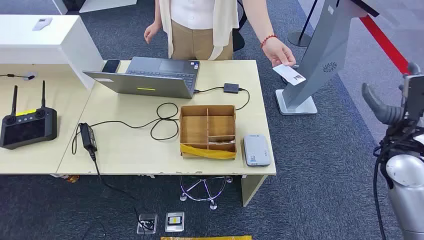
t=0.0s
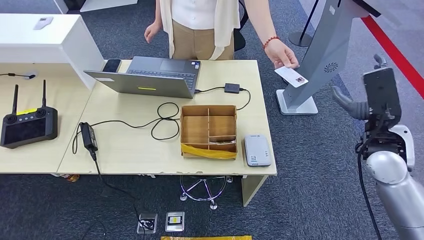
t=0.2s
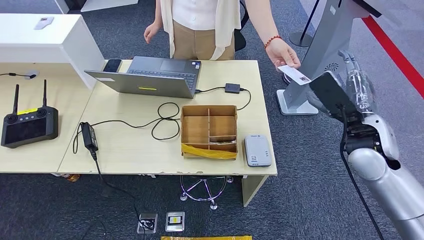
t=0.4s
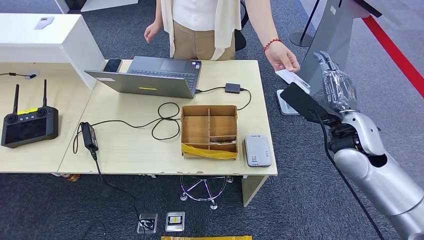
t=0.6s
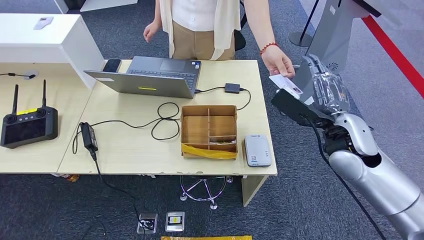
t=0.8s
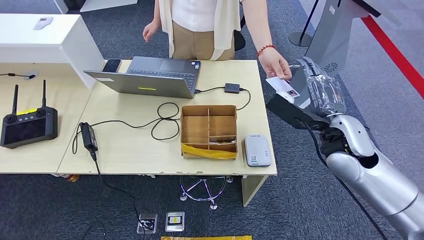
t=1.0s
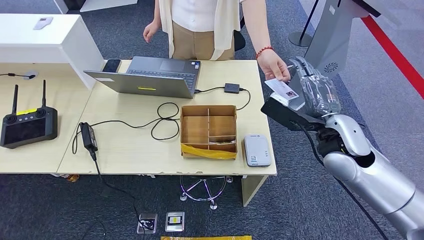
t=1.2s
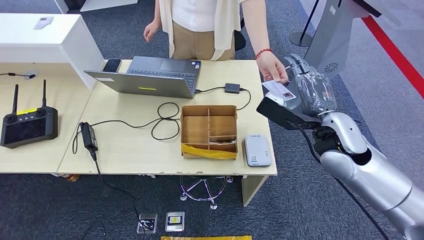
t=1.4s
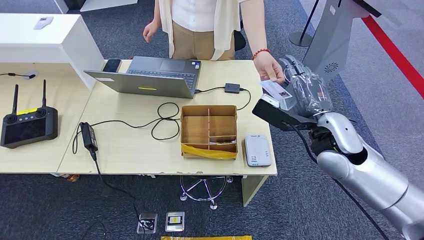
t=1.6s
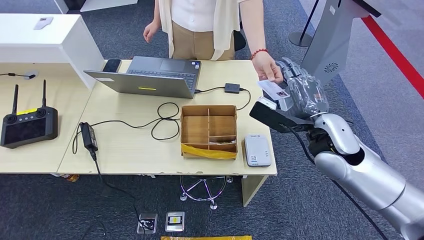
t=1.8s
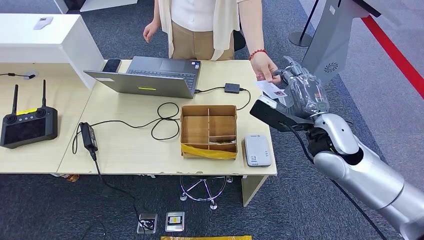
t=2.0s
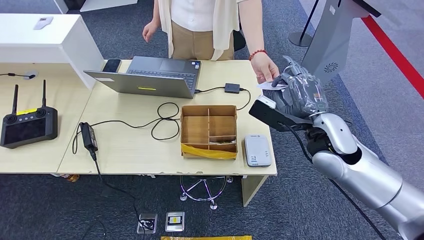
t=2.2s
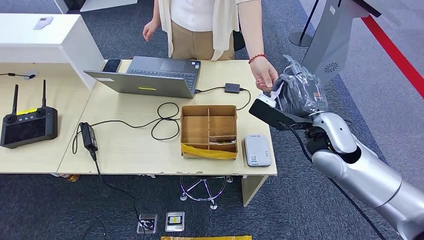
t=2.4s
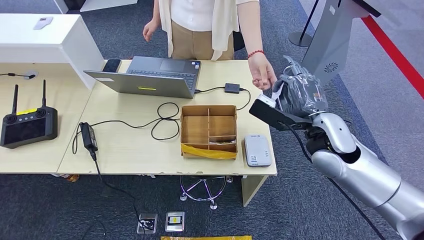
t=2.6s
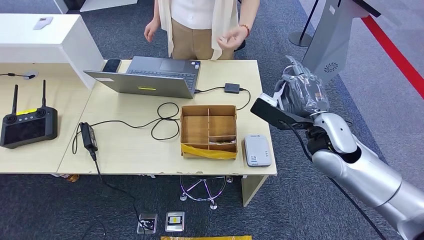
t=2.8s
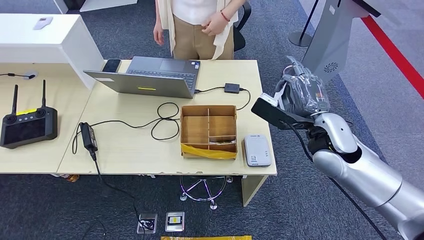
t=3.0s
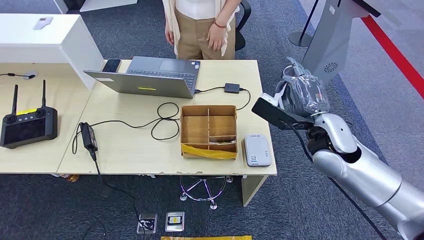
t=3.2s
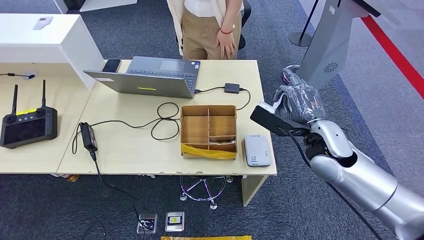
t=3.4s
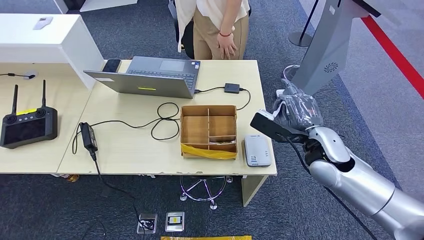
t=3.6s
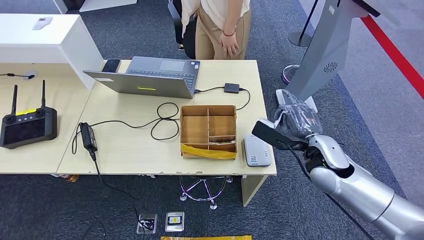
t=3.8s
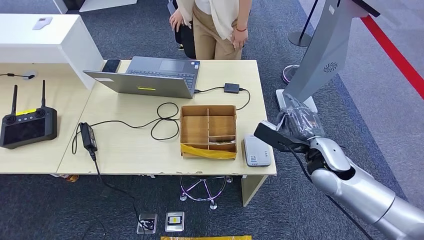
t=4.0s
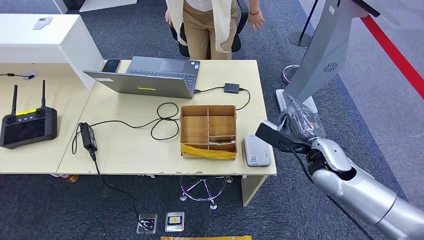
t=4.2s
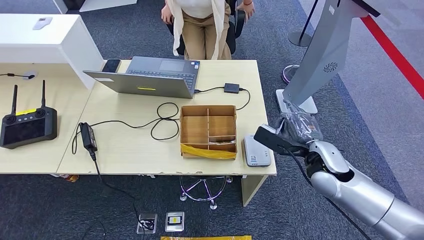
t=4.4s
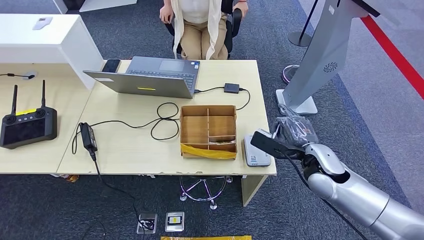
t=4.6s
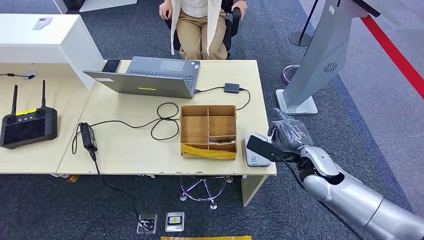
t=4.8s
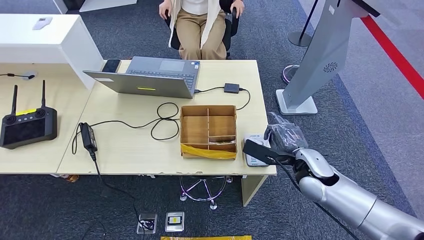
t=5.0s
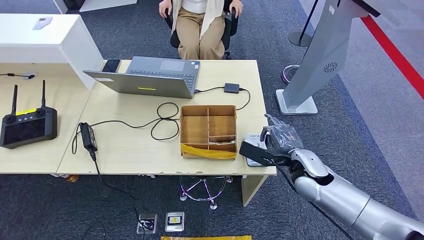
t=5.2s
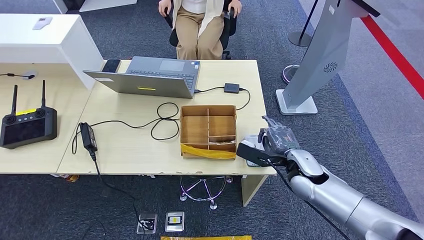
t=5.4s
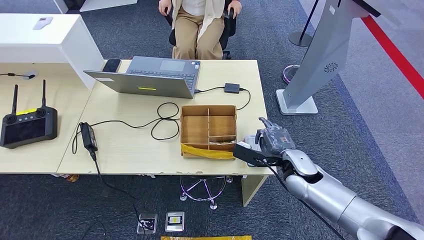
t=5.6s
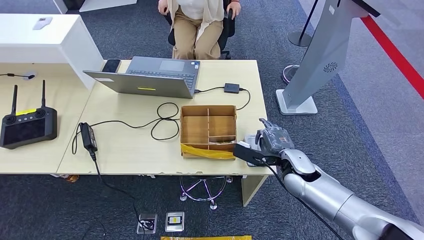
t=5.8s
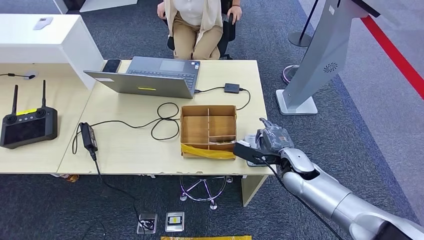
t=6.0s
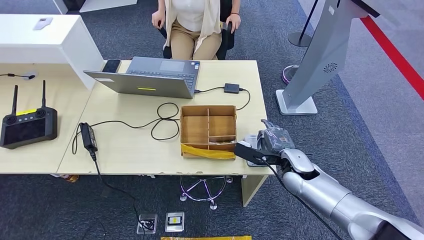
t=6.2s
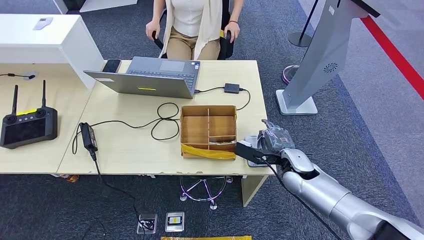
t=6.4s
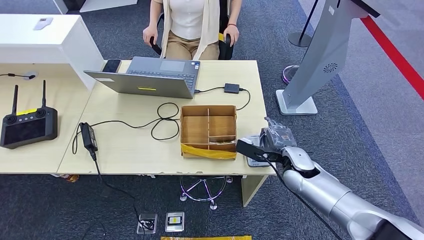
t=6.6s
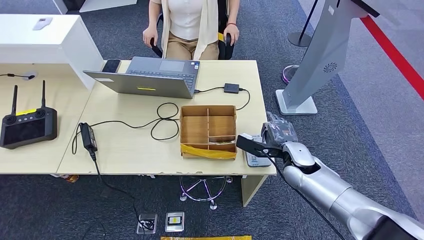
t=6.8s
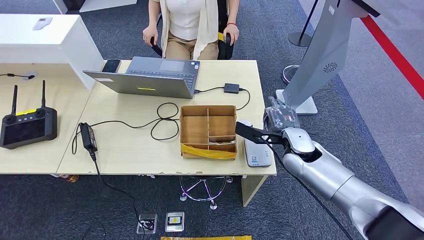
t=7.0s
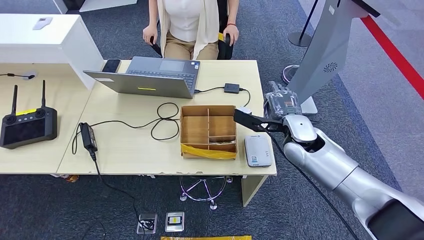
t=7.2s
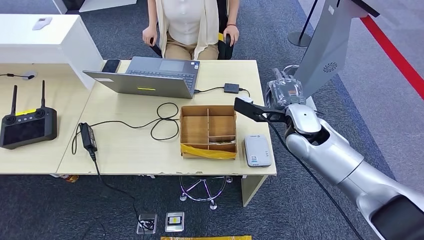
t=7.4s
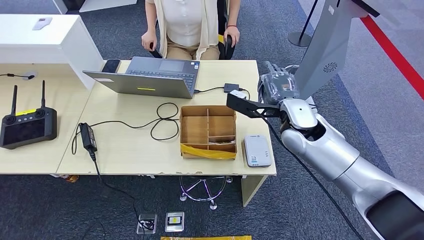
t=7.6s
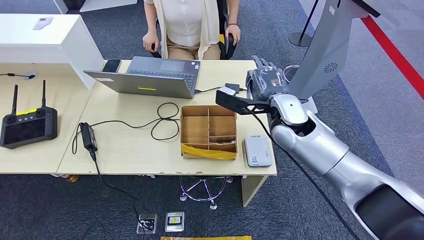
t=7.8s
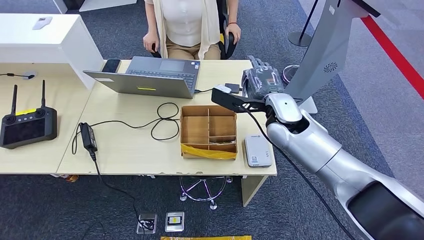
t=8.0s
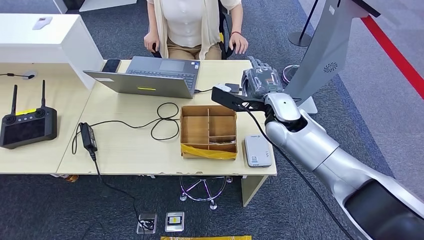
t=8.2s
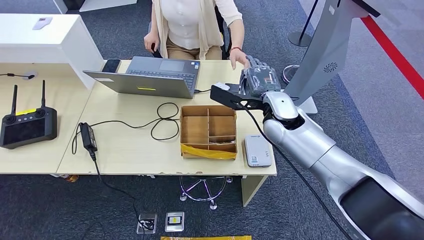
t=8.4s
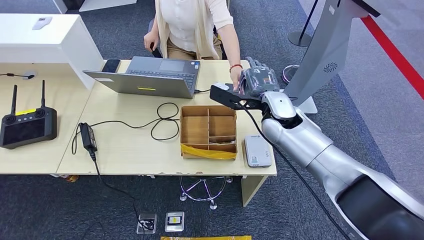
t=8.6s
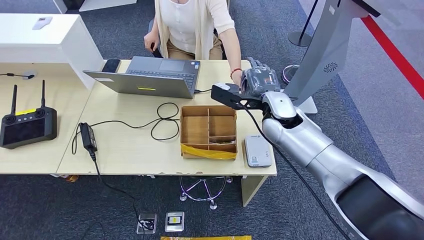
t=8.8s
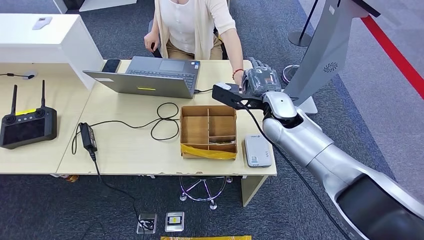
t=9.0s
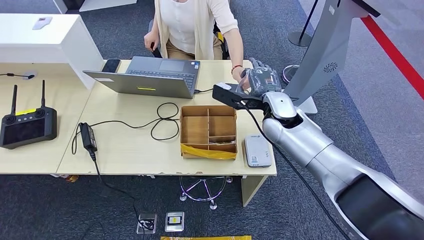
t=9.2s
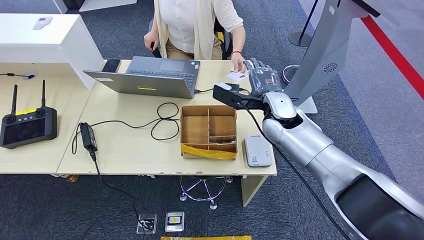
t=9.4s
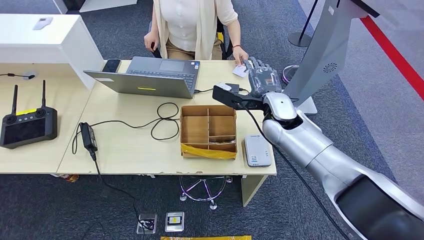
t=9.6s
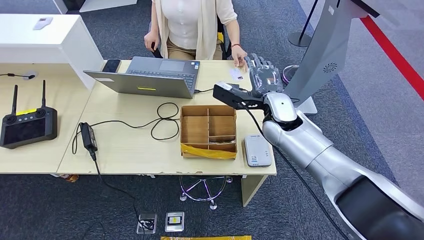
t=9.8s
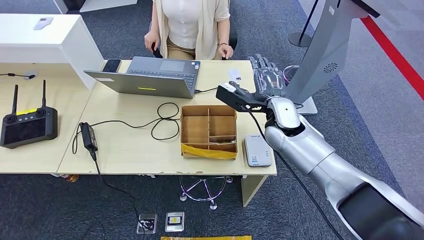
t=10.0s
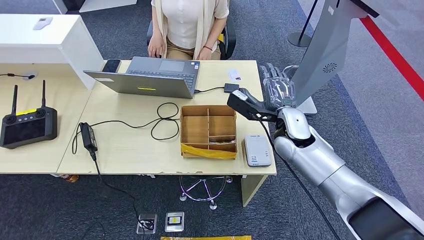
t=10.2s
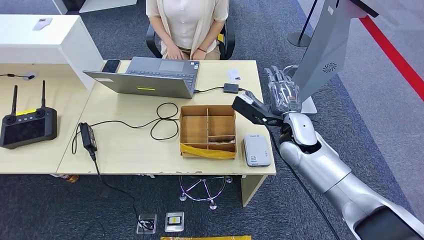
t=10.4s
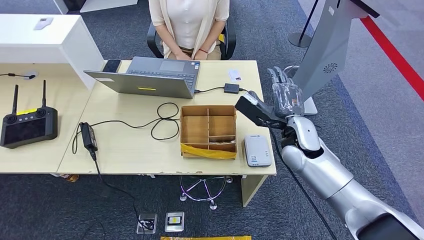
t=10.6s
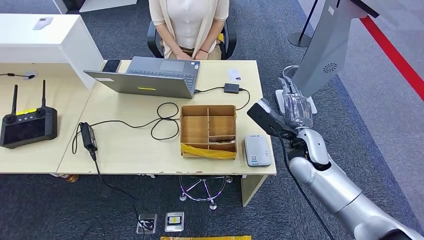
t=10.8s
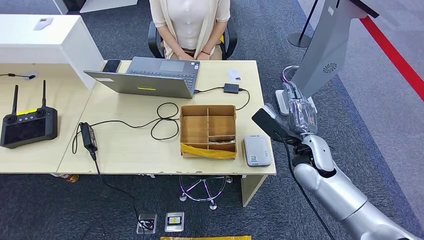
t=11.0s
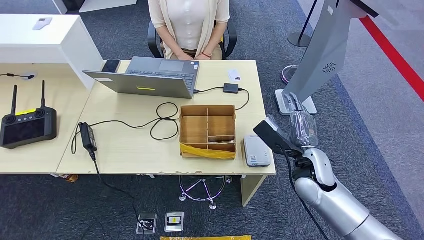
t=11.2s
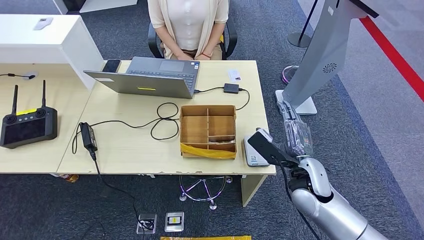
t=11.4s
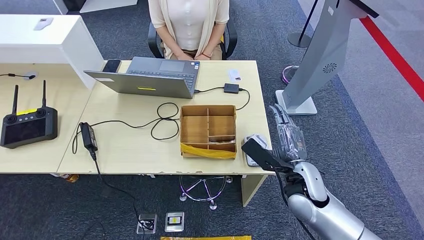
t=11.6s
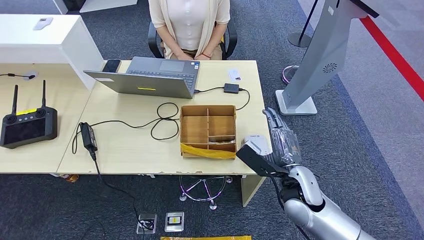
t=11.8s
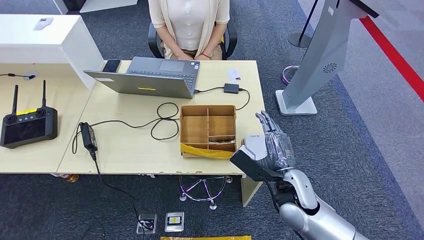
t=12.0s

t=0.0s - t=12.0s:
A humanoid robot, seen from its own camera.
Step, t=0.0s - t=3.2s: Take the ID card from the person's hand.
Step, t=3.4s - t=7.2s: Place the ID card on the card reader.
Step, t=7.4s - t=10.2s: Hand the ID card to the person.
t=1.6s - t=3.0s: The two hands keep their place.
t=3.0s - t=4.4s: The right hand goes approximately 10 cm downward.
t=4.4s - t=6.0s: The right hand is displaced downward by approximately 5 cm.
t=6.0s - t=7.6s: The right hand travels upward by about 15 cm.
t=7.6s - t=9.0s: The right hand moves approximately 5 cm.
t=9.0s - t=10.4s: The right hand ends up approximately 5 cm from where it was.
t=10.4s - t=12.0s: The right hand heads backward and downward, covering some 15 cm.

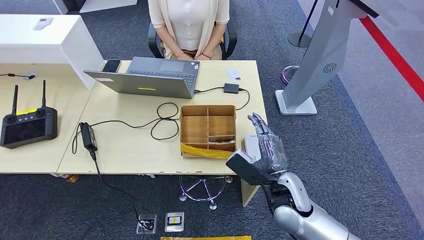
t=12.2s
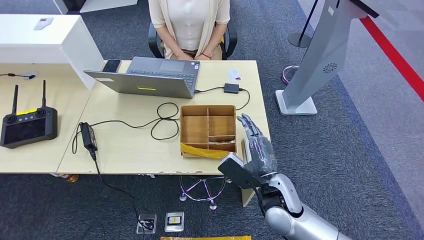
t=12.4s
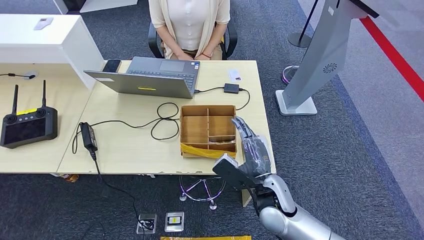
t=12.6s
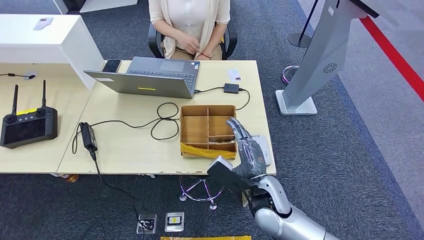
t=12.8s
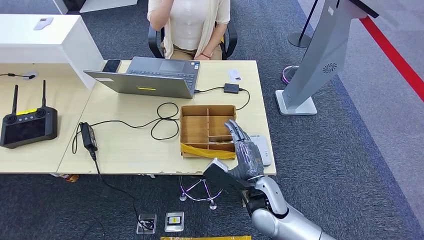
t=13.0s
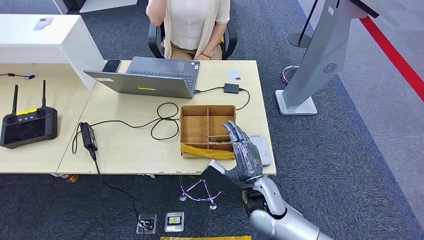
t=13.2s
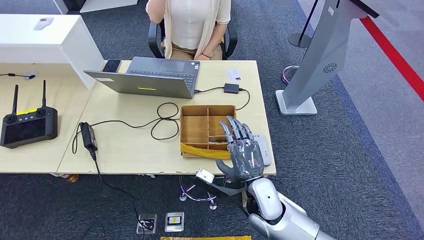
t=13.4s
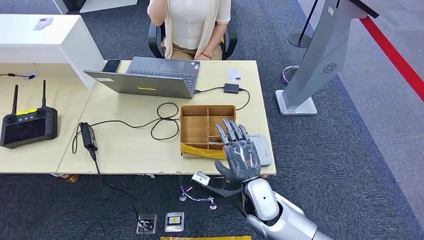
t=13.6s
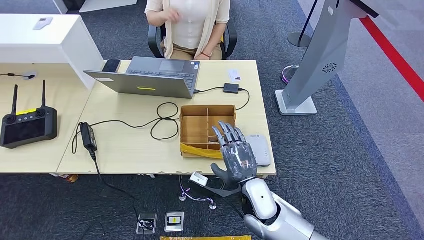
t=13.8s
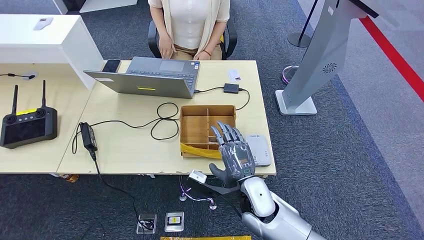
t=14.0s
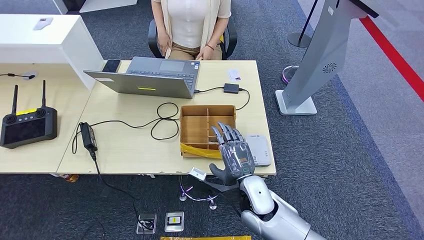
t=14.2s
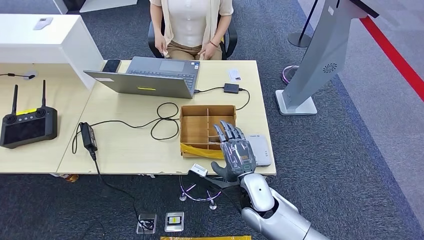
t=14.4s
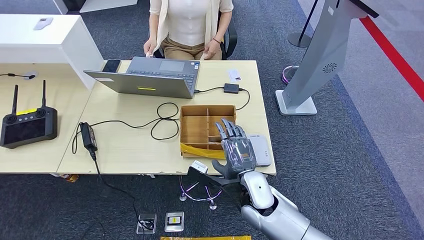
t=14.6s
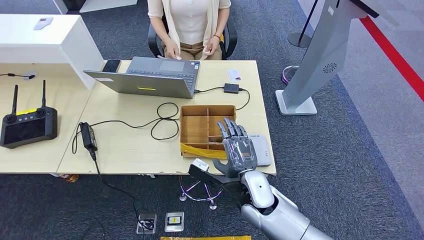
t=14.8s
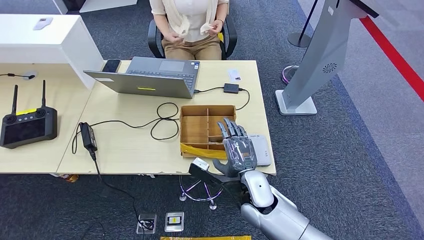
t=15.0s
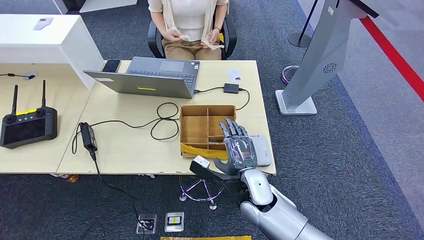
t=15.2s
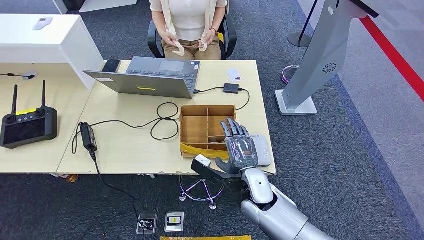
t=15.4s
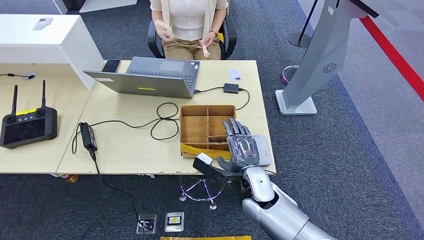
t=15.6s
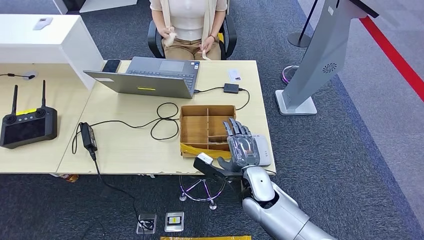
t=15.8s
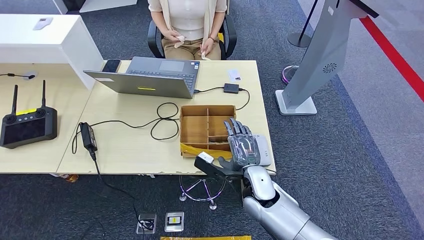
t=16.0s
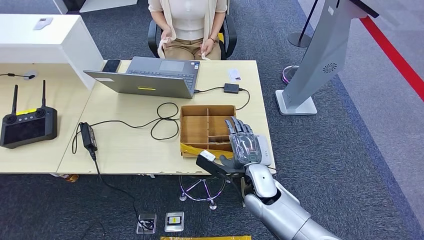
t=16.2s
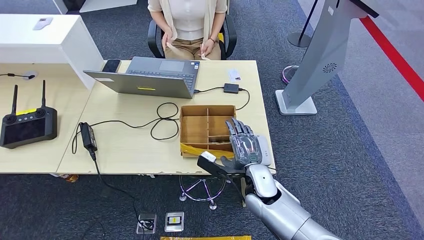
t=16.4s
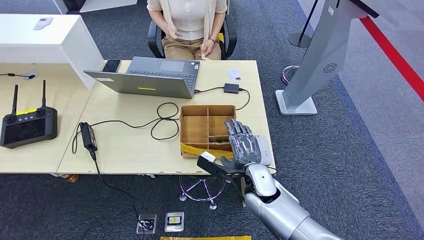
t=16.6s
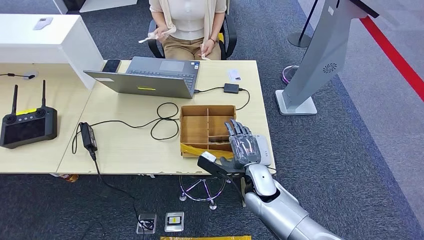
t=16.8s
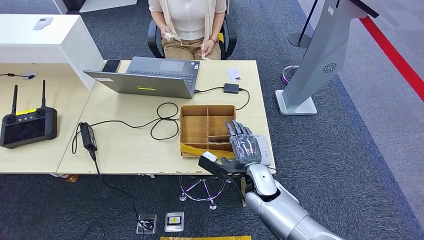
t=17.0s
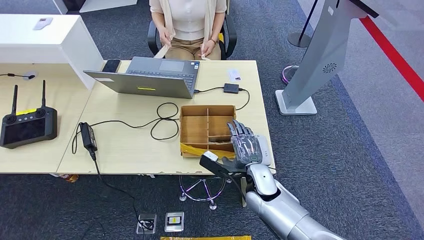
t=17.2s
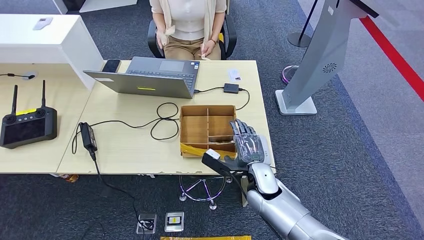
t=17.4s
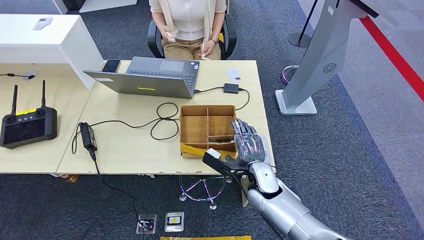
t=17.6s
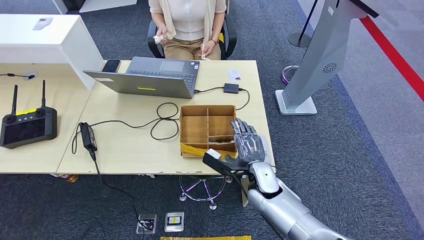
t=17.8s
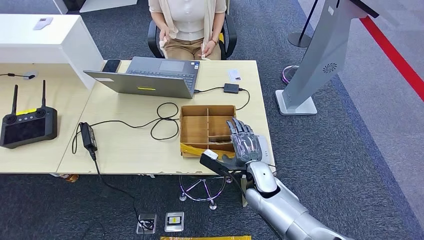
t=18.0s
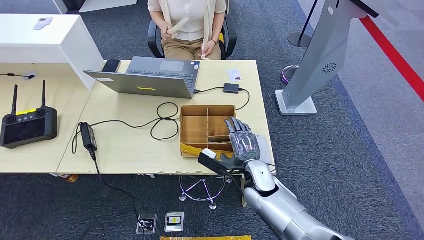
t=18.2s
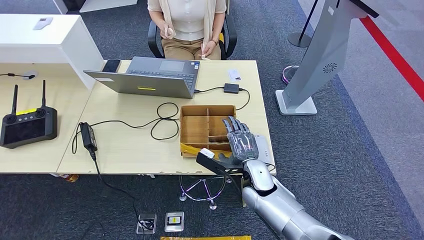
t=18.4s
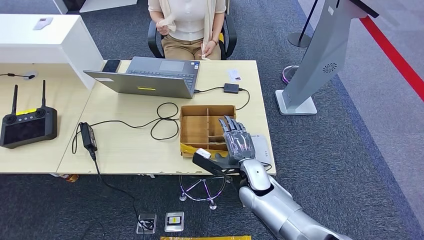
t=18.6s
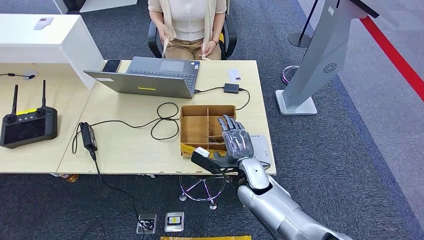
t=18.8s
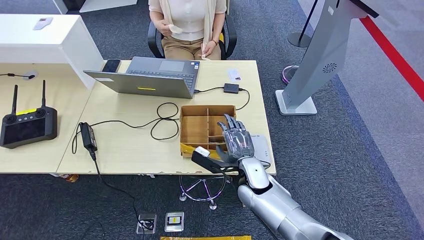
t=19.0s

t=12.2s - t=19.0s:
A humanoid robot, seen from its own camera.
t=12.2s - t=13.6s: The right hand shifts roughly 5 cm to the left.
t=13.6s - t=16.2s: There are only small adjustments of the hands.
t=16.2s - t=19.0s: The hands stay close to where they were, moving slightly.
